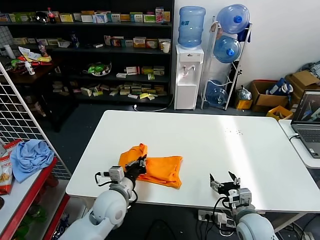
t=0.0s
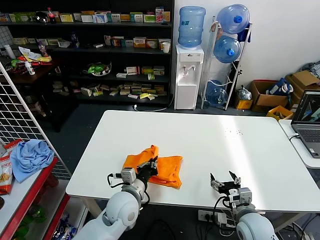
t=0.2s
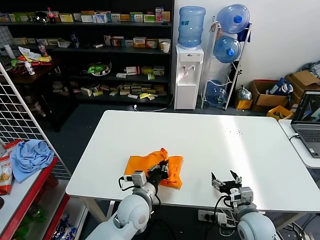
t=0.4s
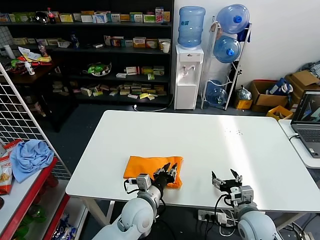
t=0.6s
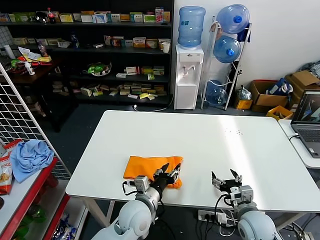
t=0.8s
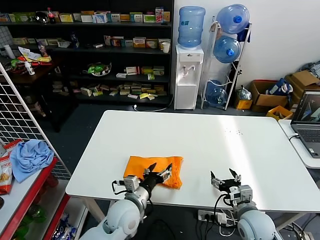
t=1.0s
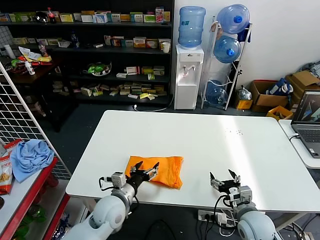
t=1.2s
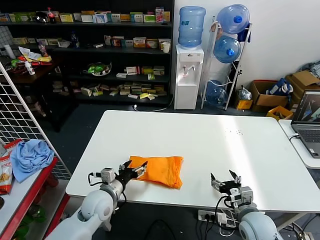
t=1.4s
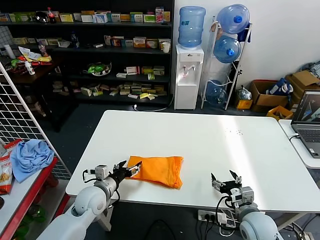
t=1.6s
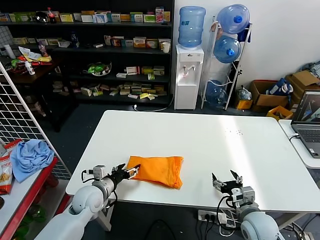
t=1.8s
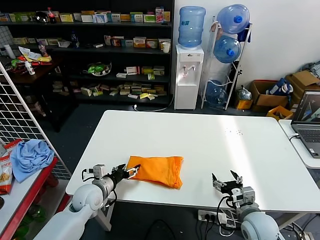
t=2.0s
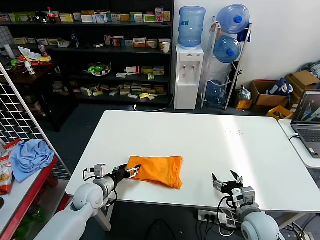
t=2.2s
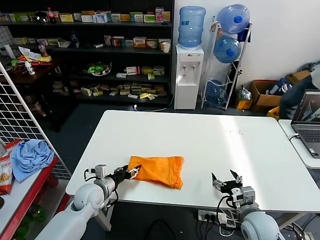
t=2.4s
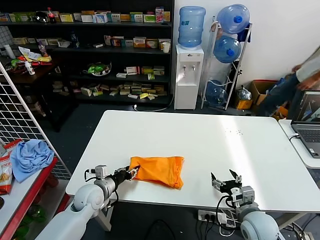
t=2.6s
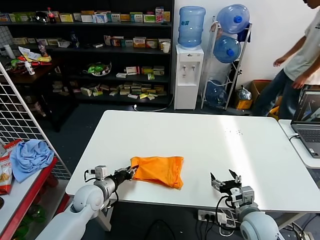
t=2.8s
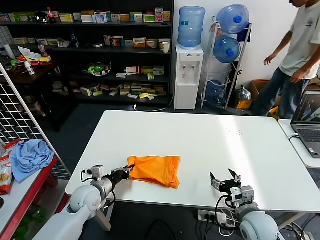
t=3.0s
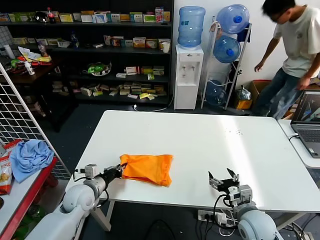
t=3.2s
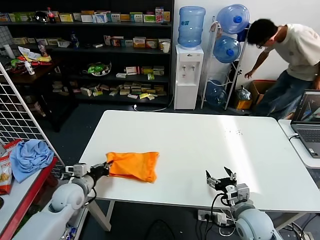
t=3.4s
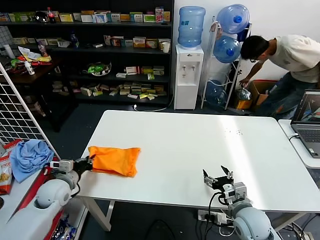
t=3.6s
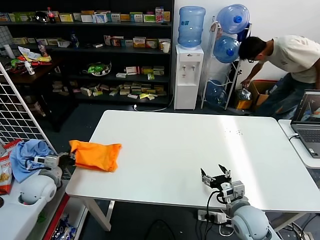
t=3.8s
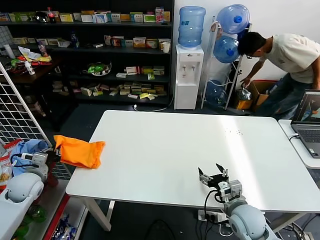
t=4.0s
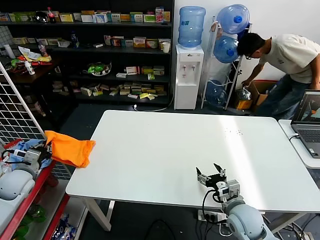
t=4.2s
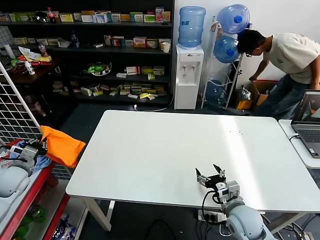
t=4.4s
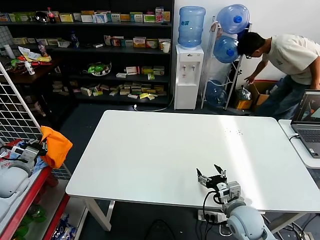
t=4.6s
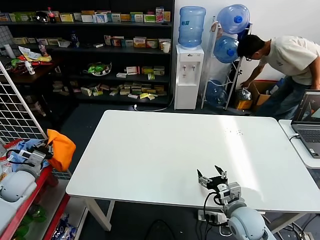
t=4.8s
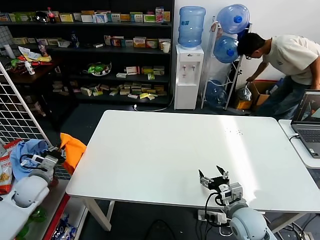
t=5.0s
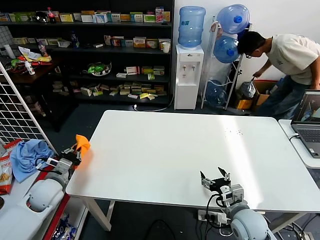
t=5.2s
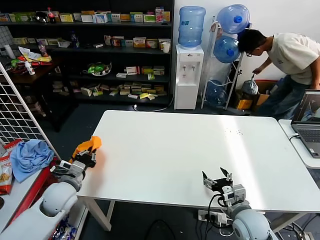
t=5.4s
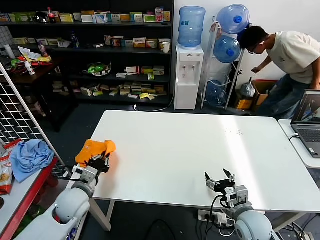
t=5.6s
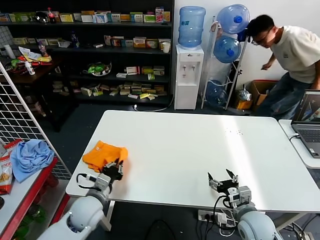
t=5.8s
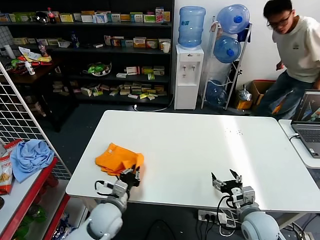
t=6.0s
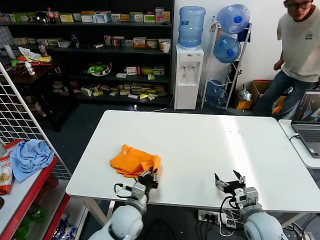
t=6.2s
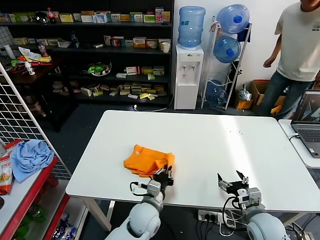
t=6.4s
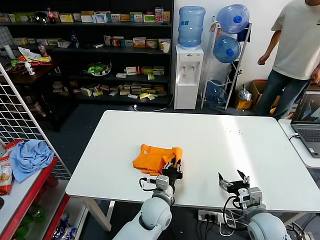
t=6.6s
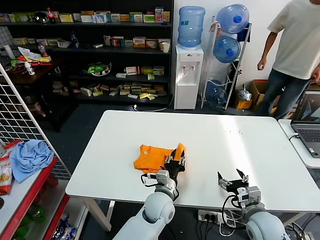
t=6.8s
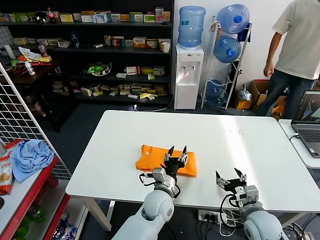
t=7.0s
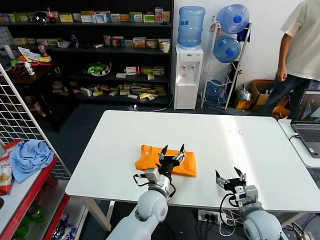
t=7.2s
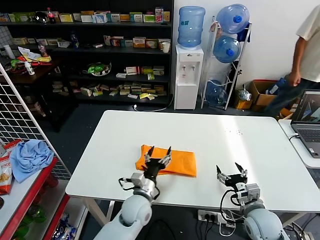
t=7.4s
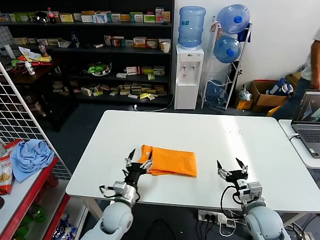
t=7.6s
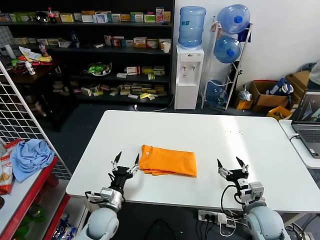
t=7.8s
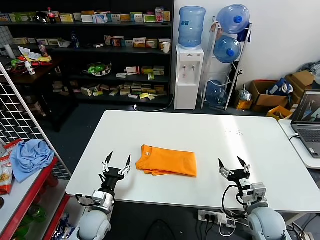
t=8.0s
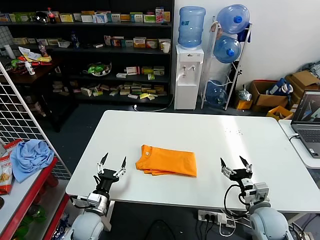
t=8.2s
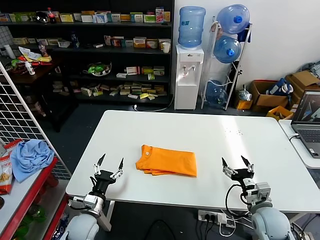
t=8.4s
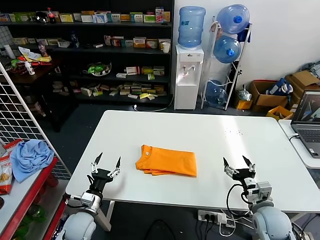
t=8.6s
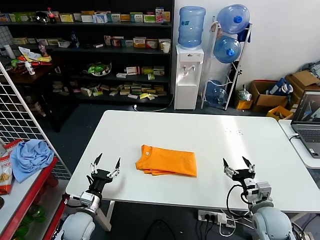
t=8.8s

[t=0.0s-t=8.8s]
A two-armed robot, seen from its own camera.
Task of the whole recording: fold and organize the clothes.
Step, t=1.0s to t=7.0s: Flip the folded clothes over with left gripper.
t=0.0s to t=1.4s: The left gripper goes to the right and returns, about 10 cm each way, and opens.
t=1.4s to t=3.0s: The left gripper heads to the left, covering roughly 5 cm, and closes.
t=3.0s to t=4.4s: The left gripper shifts roughly 25 cm to the left and upward.
t=4.4s to t=5.8s: The left gripper heads to the right, covering some 25 cm.
t=5.8s to t=7.4s: The left gripper travels to the right by roughly 20 cm, and opens its fingers.
t=7.4s to t=8.8s: The left gripper is displaced to the left by about 20 cm.
